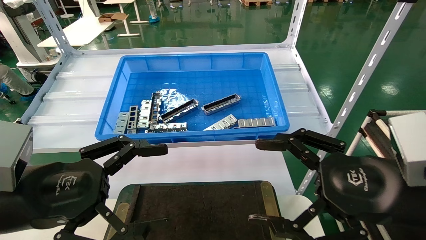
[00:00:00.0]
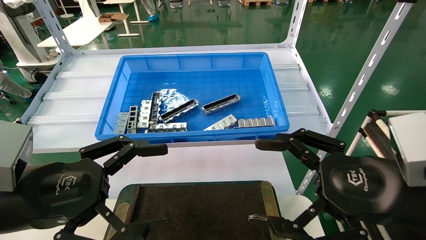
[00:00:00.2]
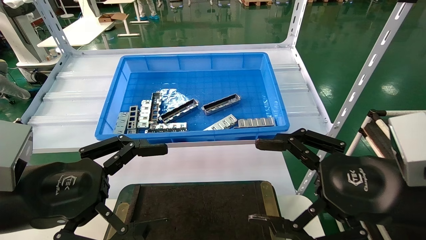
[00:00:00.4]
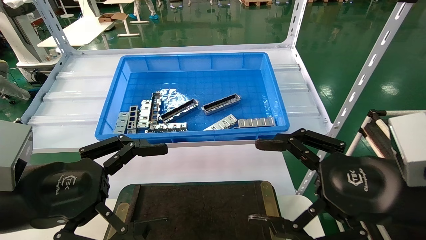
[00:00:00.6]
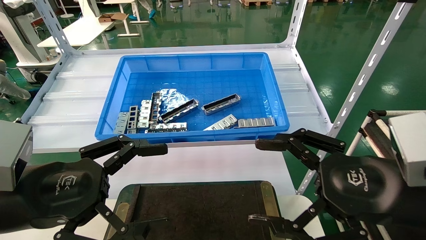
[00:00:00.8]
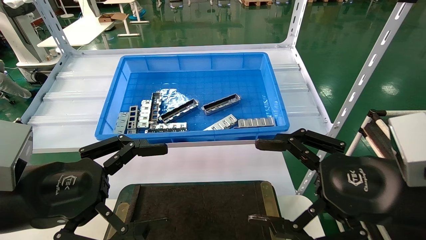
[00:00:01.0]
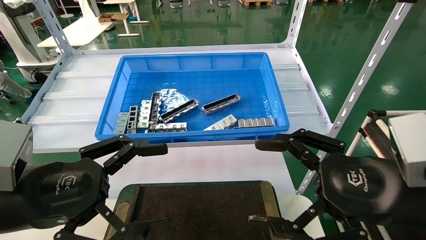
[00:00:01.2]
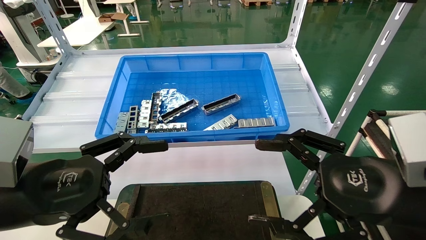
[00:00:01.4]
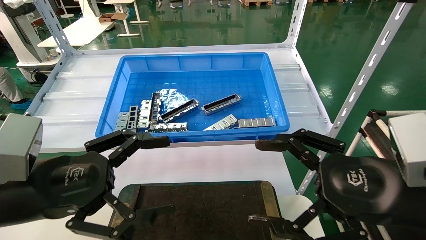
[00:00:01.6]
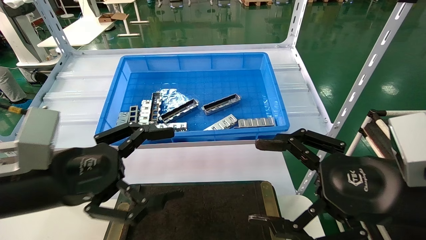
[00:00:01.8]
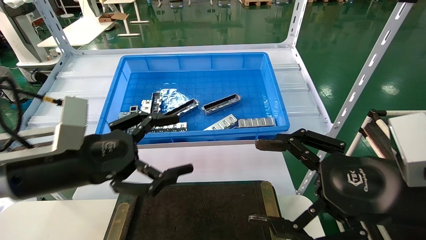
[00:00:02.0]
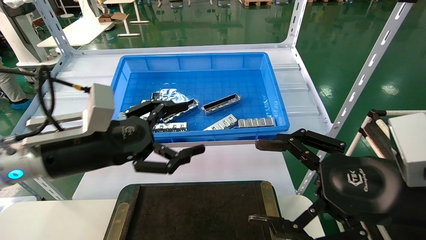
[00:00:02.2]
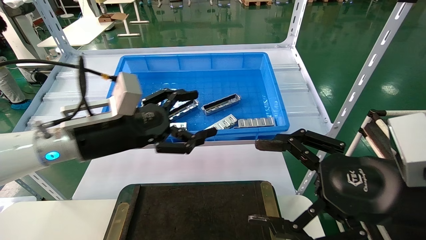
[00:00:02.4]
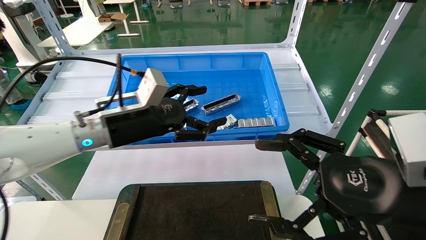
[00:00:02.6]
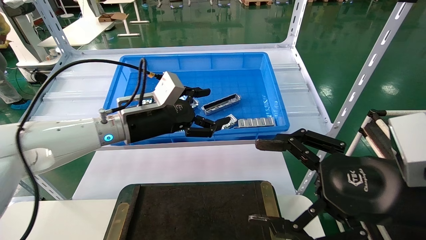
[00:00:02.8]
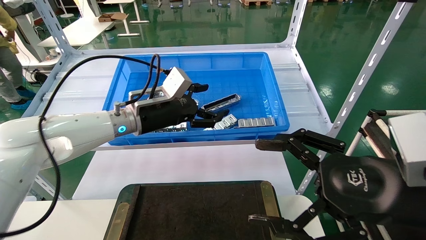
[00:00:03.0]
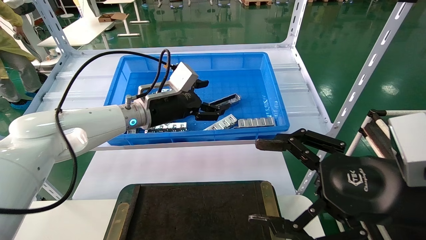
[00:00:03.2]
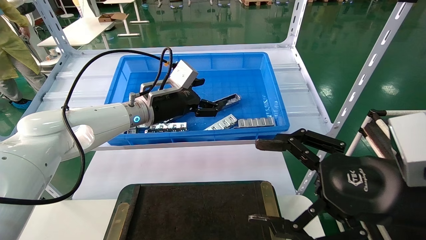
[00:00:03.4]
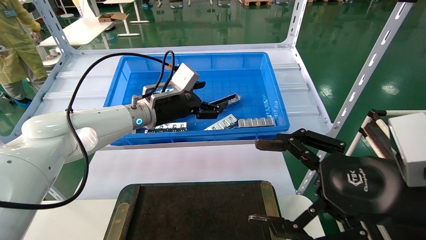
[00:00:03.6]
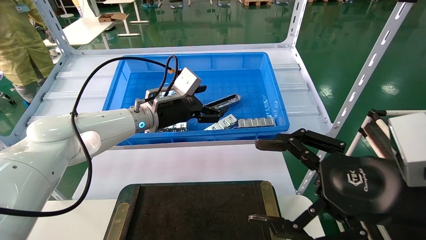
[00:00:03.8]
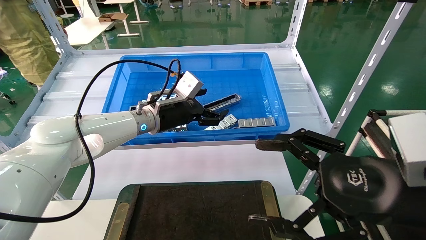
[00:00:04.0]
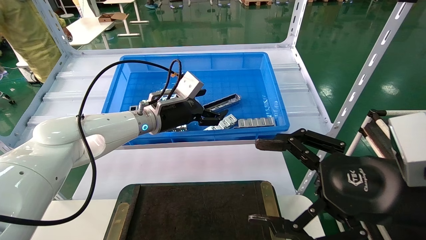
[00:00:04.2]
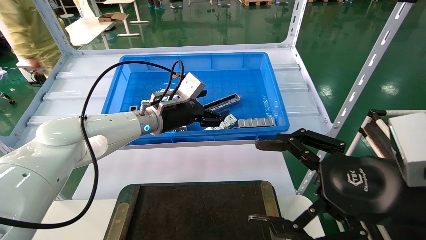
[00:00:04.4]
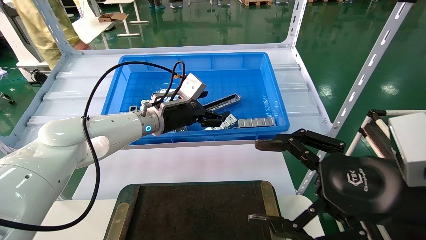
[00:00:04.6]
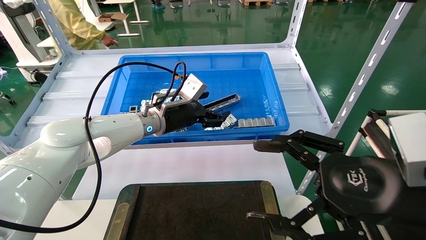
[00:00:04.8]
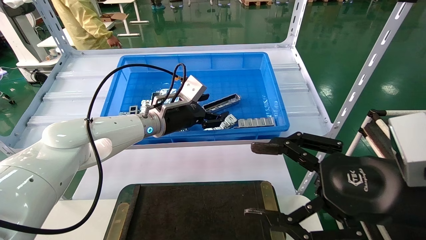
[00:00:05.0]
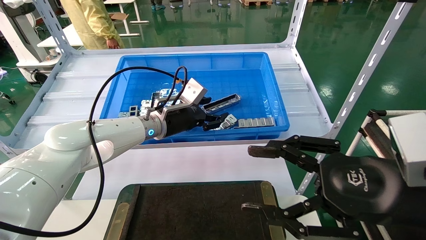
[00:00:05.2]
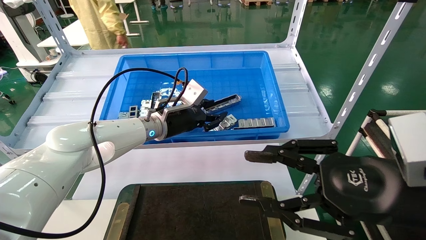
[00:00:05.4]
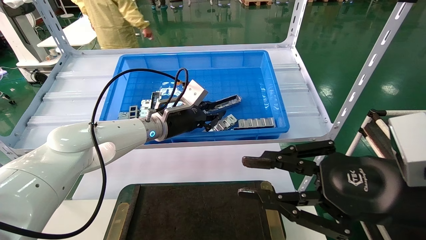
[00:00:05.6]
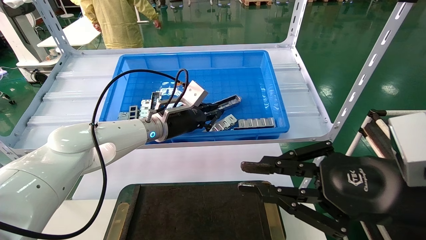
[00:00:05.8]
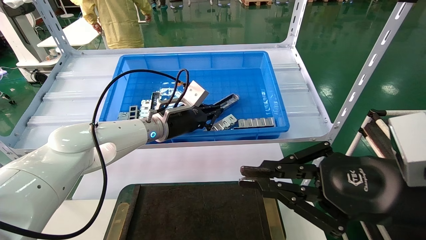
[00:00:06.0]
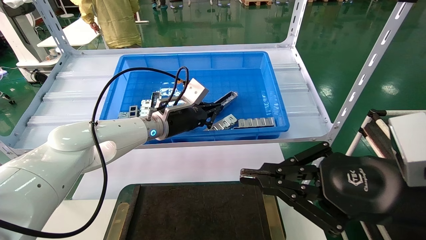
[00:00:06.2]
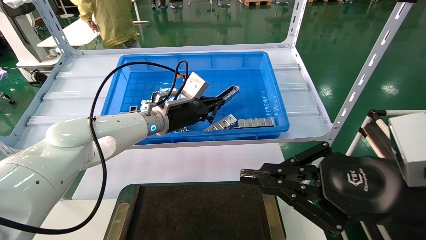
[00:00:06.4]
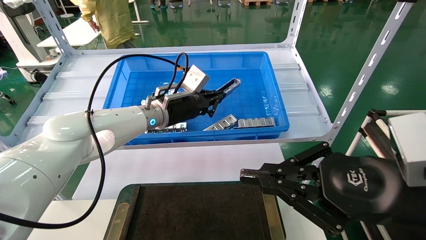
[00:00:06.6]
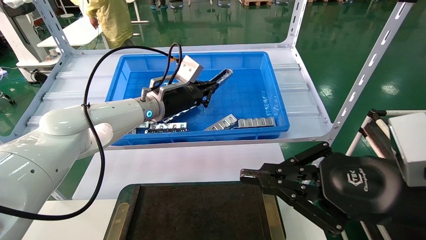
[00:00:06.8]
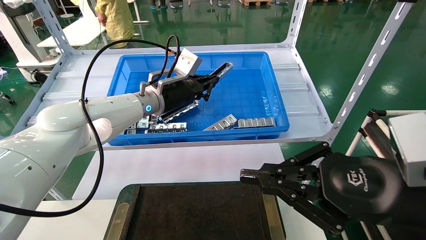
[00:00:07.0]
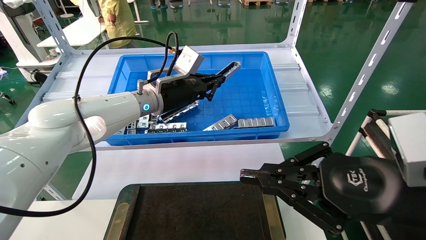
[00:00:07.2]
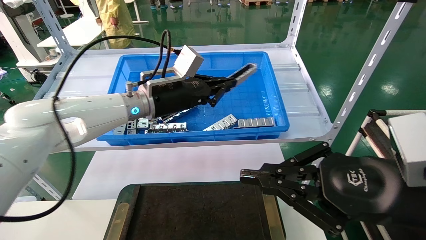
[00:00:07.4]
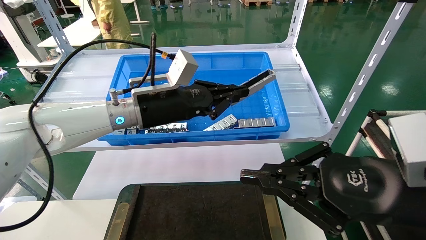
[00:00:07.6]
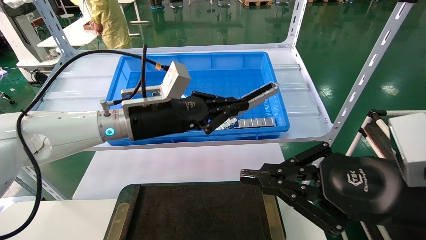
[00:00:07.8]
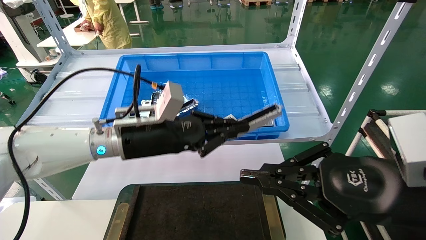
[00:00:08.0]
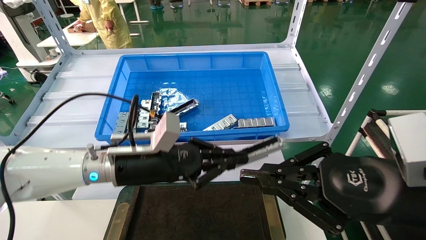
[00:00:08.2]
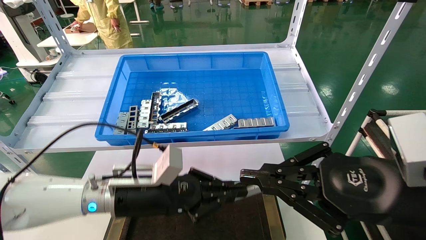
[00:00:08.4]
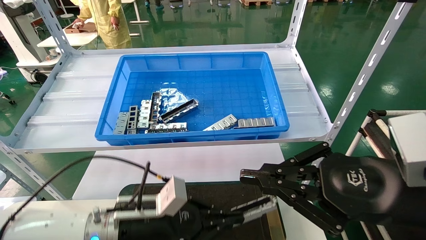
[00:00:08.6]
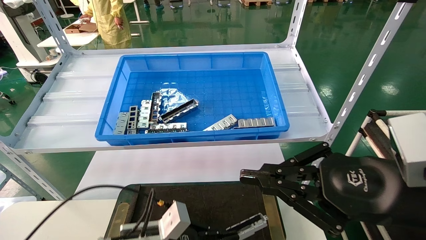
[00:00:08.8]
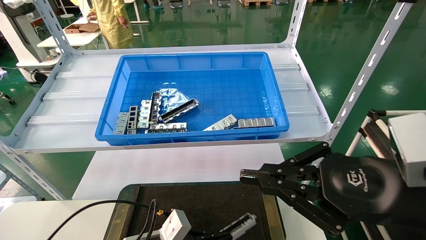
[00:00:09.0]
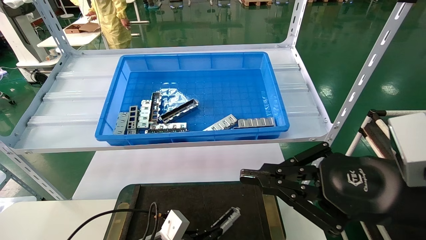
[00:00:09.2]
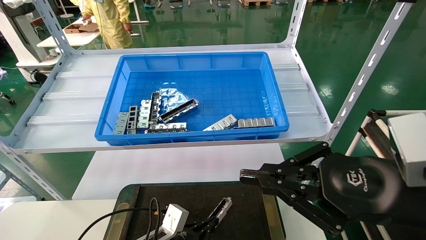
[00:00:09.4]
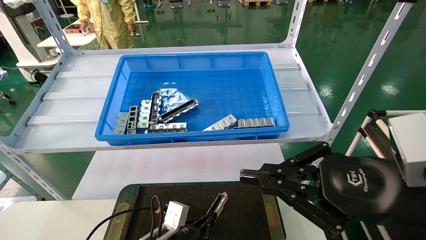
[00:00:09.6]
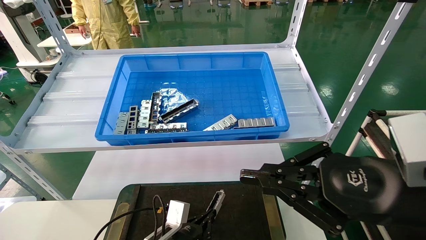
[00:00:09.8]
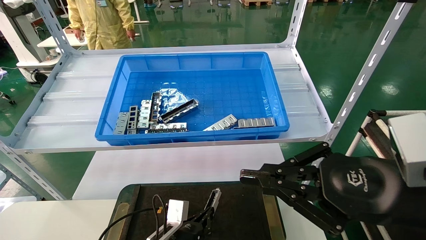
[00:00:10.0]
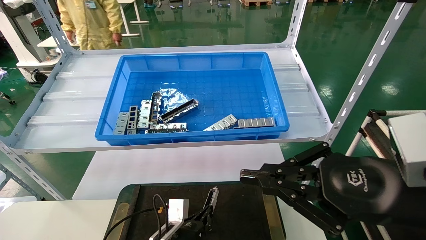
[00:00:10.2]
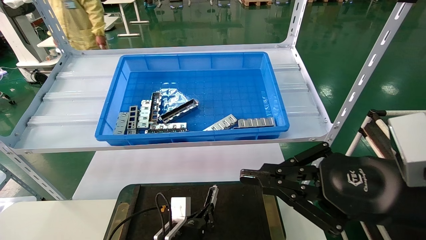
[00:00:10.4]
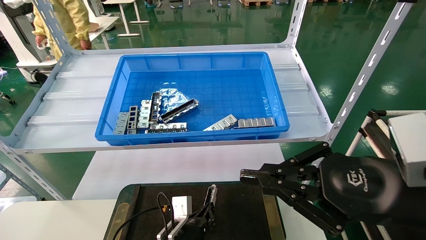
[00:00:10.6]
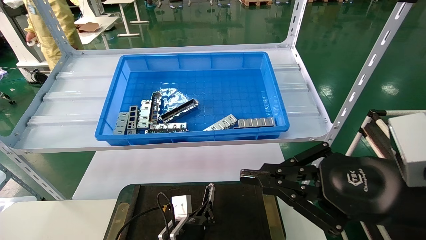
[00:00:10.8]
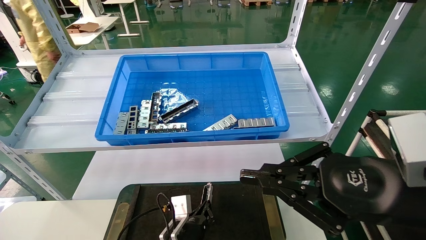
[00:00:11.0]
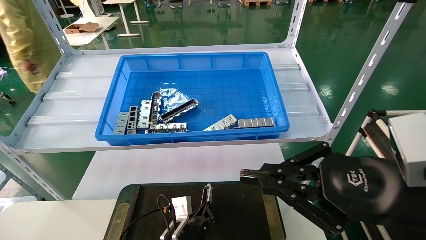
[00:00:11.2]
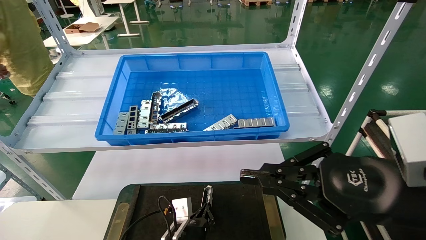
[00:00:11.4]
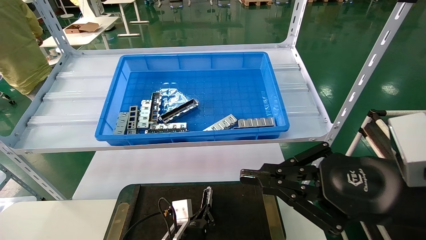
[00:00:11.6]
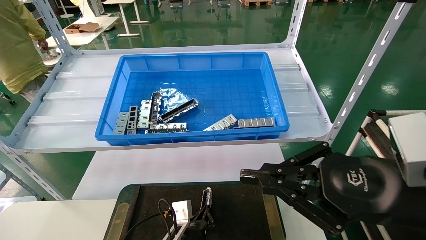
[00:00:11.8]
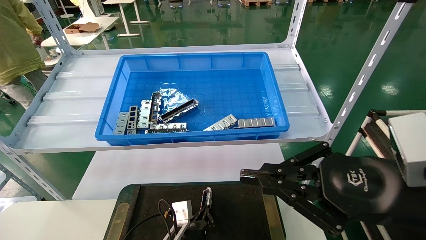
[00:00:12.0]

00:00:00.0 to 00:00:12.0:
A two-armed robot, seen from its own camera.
Task of the whole recording: Grasp the part with one hand and place it on the black container.
Step, 00:00:02.0 to 00:00:06.0: Pick up the front USB bracket from the feeding area.
00:00:00.0 to 00:00:01.6: The grippers make only small movements.
00:00:01.6 to 00:00:03.0: The left gripper shifts some 25 cm forward and to the right.
00:00:03.0 to 00:00:04.4: The left gripper ends up about 5 cm from where it was.
00:00:04.4 to 00:00:06.0: The right gripper closes up; the left gripper closes up.
00:00:06.0 to 00:00:07.6: The left gripper moves backward and upward, approximately 10 cm.
00:00:07.6 to 00:00:09.0: The left gripper heads downward, covering roughly 30 cm.
00:00:09.0 to 00:00:10.4: The left gripper travels to the right and downward by about 10 cm.
00:00:10.4 to 00:00:12.0: There are only small adjustments of the grippers.

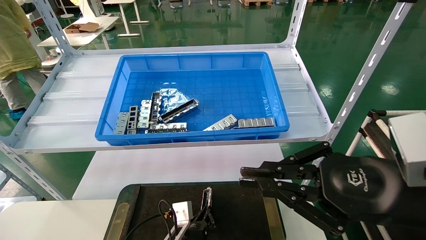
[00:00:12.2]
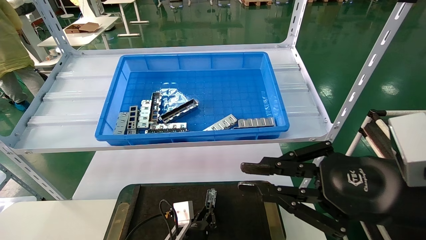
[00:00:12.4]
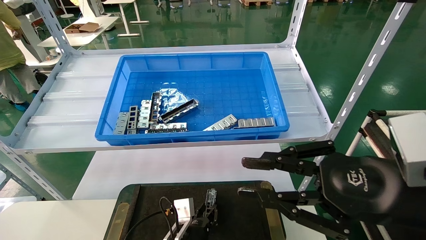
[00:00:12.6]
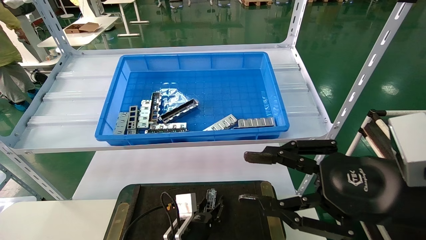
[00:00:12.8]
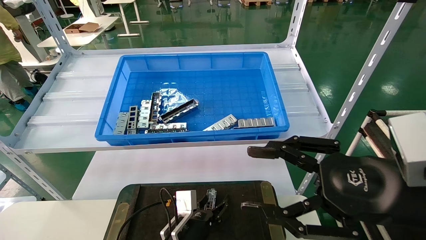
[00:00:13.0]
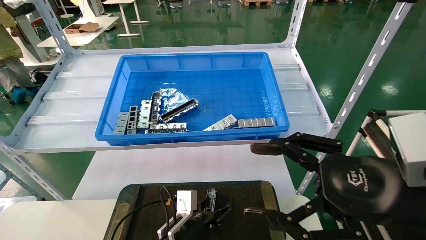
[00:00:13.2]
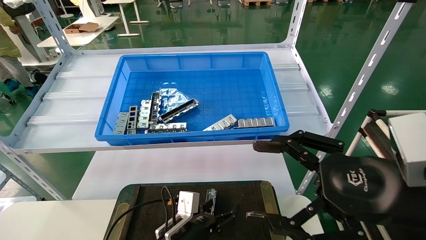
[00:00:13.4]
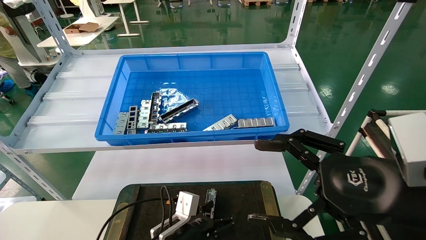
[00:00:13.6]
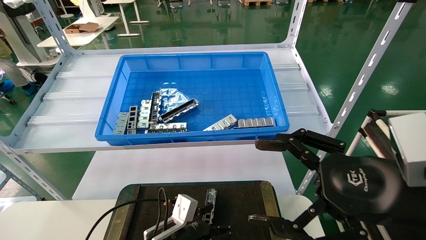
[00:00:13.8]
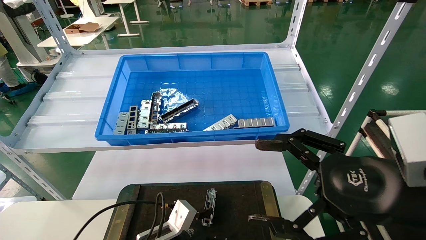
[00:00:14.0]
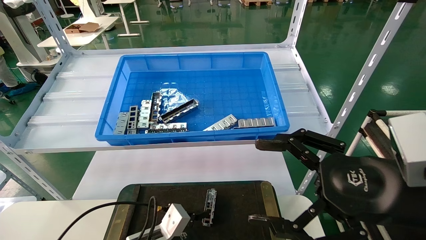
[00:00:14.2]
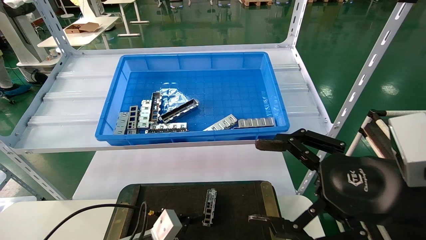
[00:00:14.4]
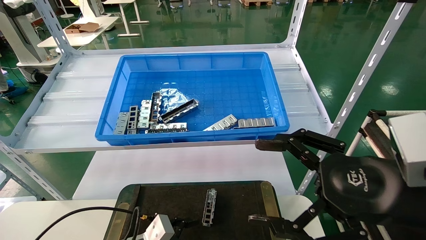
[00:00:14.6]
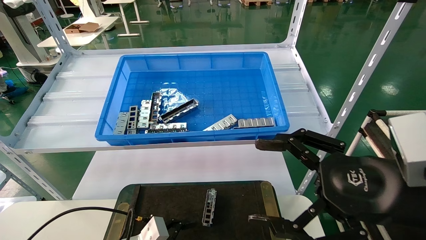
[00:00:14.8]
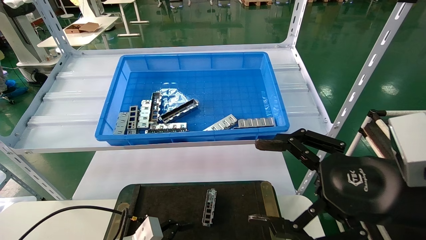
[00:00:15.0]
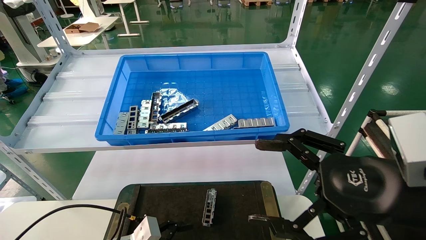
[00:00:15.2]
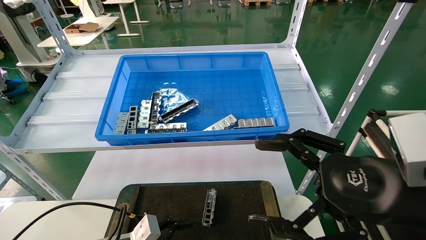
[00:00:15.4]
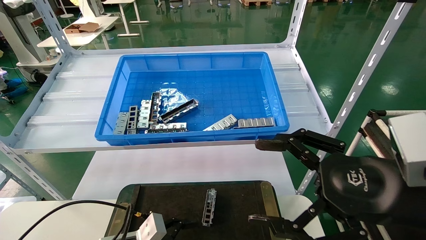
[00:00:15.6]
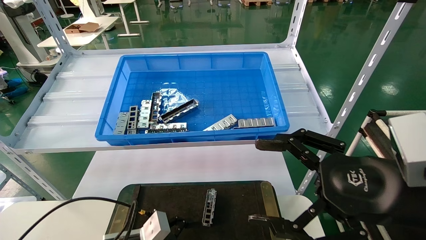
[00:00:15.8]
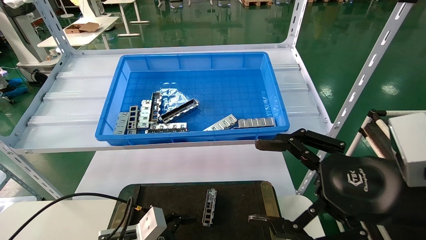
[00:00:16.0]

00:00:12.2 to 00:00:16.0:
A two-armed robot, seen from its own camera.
Task of the whole recording: Grasp the part with one hand and place it on the black container.
00:00:12.2 to 00:00:13.4: The left gripper moves some 5 cm, and opens. Meanwhile the right gripper opens up.
00:00:13.4 to 00:00:14.8: The left gripper is displaced to the left by some 10 cm.
00:00:14.8 to 00:00:16.0: The grippers move only a little.
